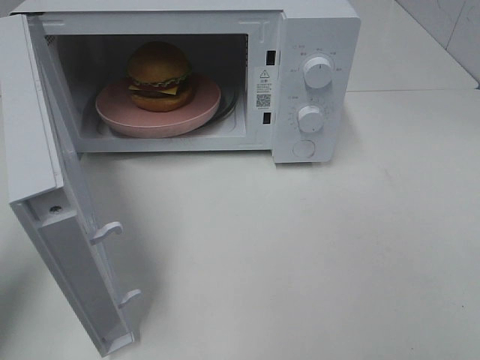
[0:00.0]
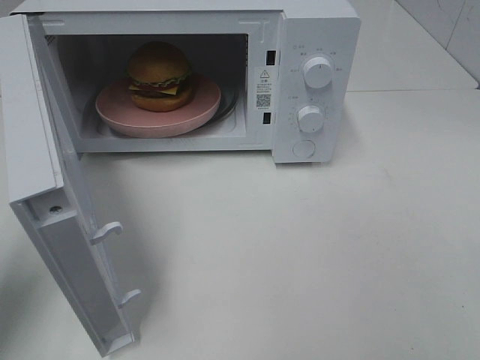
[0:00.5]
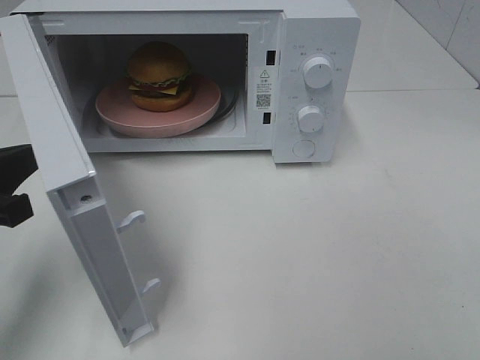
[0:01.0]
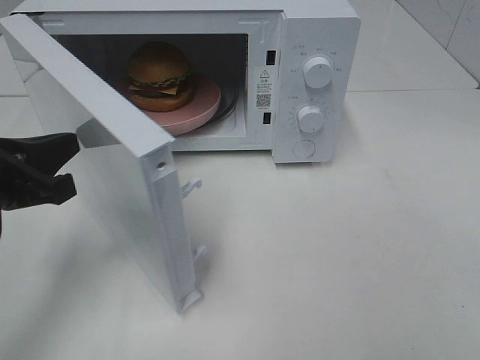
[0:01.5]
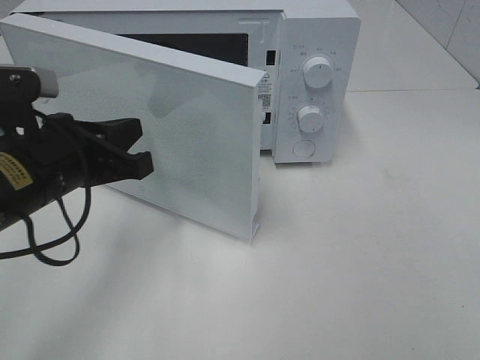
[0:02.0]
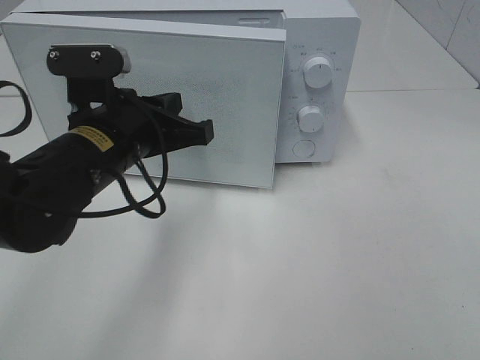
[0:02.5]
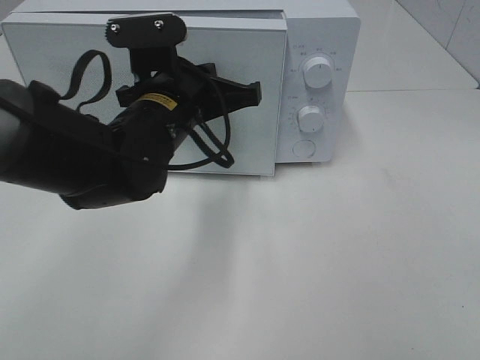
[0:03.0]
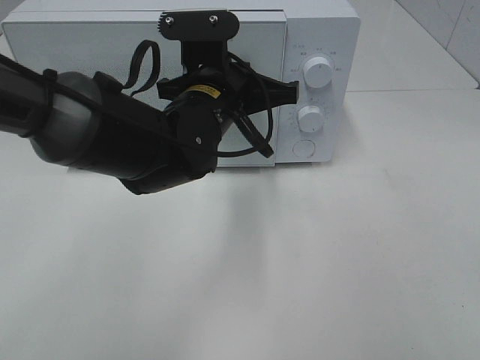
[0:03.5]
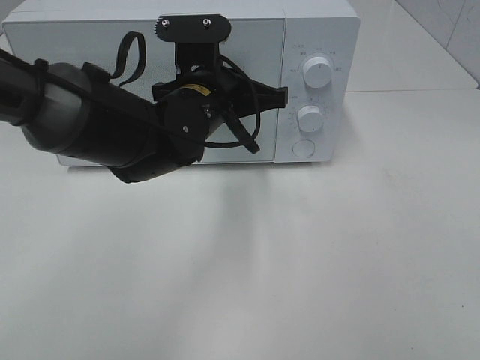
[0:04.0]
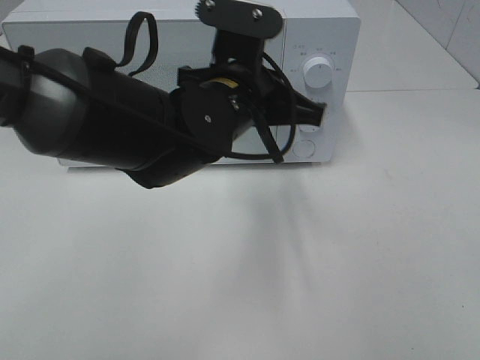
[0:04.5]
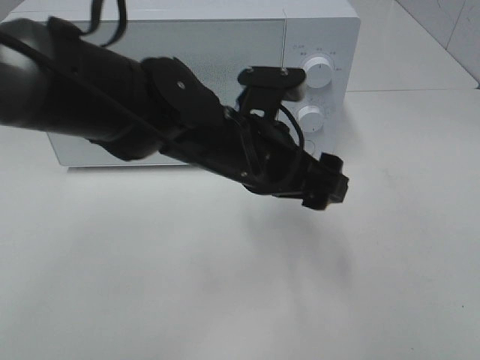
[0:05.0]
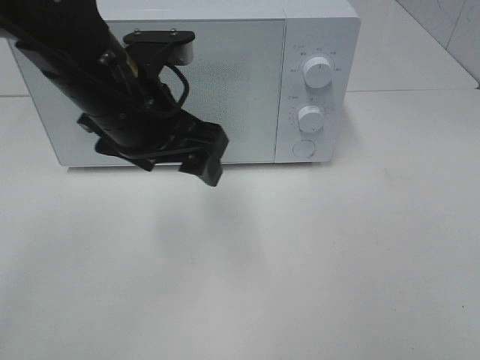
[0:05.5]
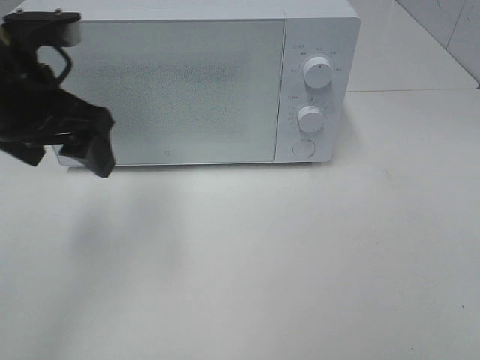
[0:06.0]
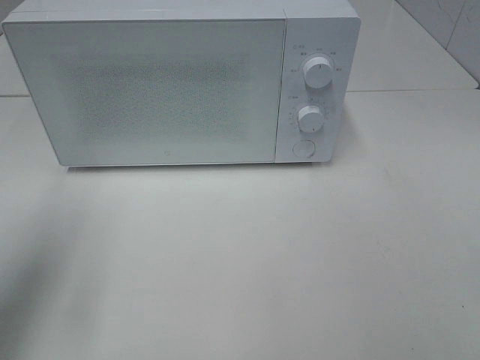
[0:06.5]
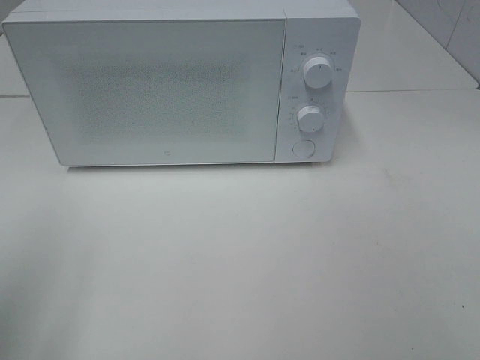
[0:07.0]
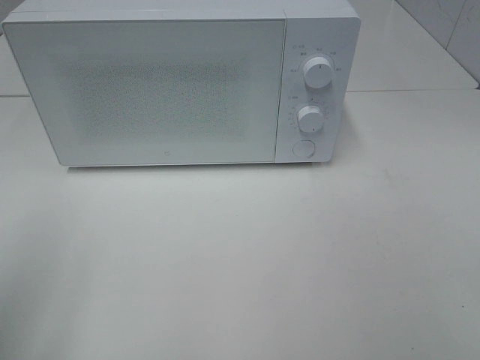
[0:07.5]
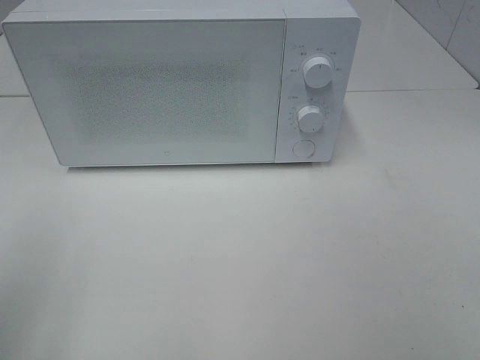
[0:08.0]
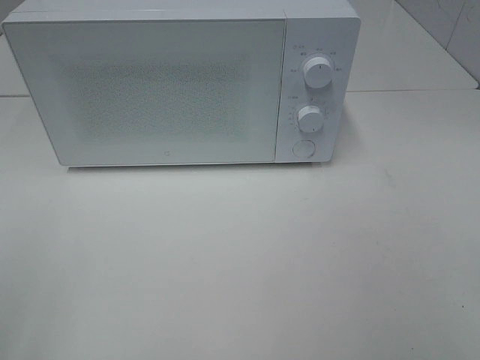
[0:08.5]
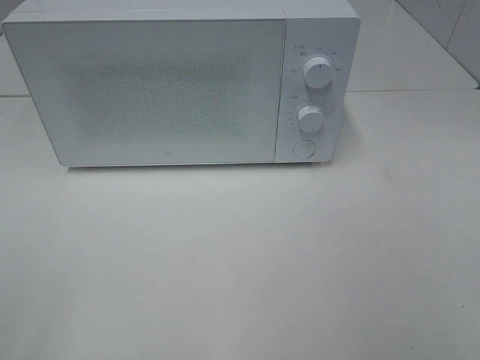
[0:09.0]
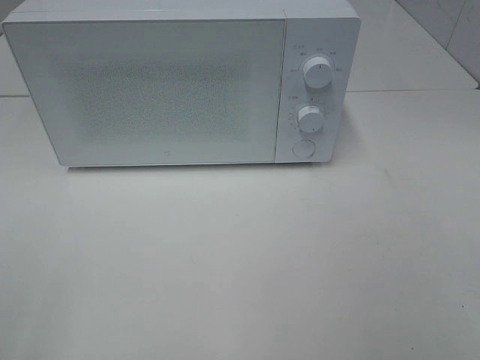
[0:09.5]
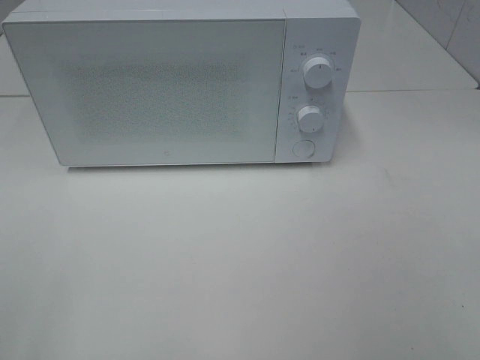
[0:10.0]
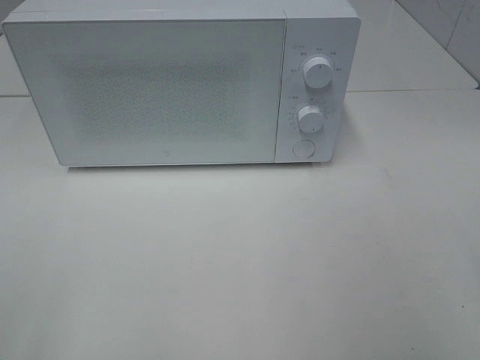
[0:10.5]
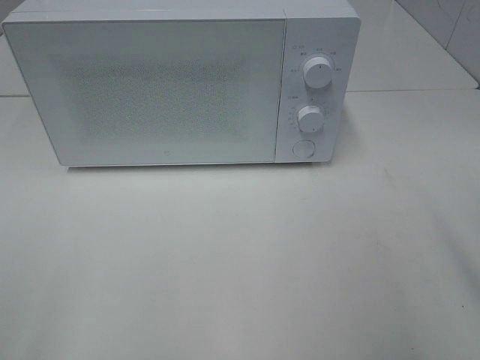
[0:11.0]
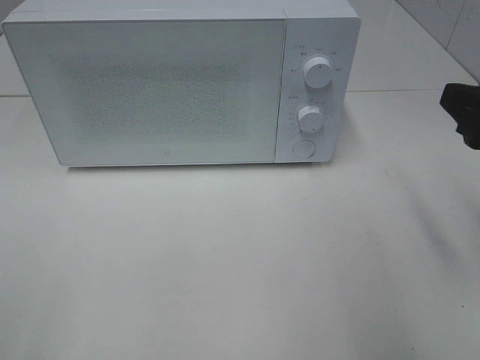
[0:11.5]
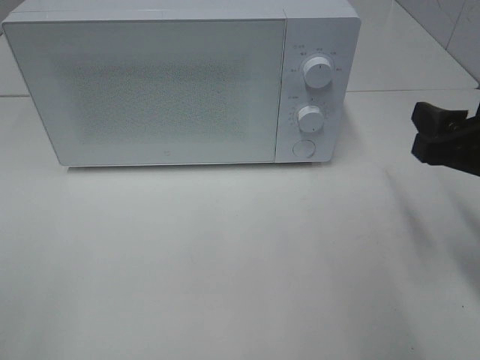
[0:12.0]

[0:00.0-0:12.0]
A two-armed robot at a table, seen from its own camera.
Task of the whole recording: Heat the burger.
Step, 0:00.0 to 0:04.0: Left hand: close the microwave door.
0:00.0 to 0:02.0: The left gripper goes some 15 cm to the right and forward.
0:02.0 to 0:04.0: The left gripper travels to the right and forward by roughly 15 cm.
0:04.0 to 0:06.0: The left gripper shifts about 20 cm to the left and upward, and opens.
0:06.0 to 0:08.0: The left gripper shifts about 20 cm backward and to the left.
0:10.0 to 0:12.0: The right gripper moves forward and downward, some 20 cm.

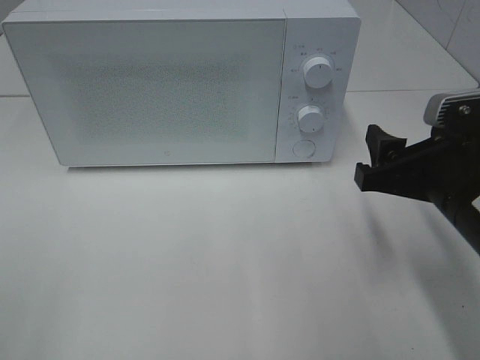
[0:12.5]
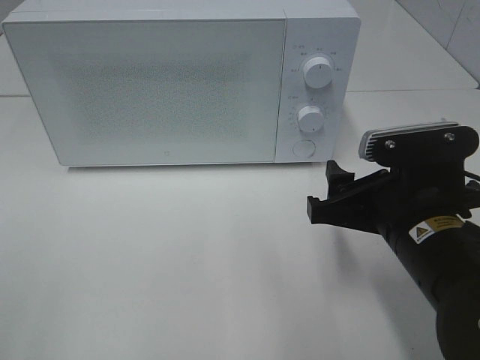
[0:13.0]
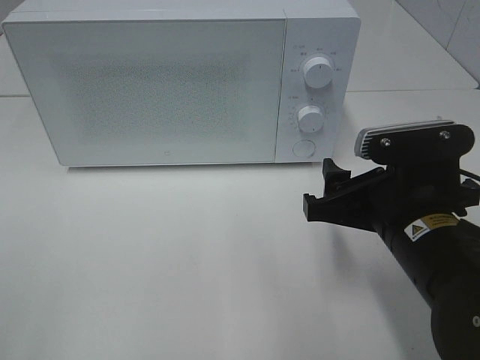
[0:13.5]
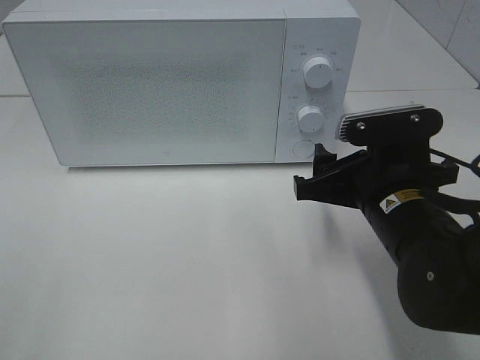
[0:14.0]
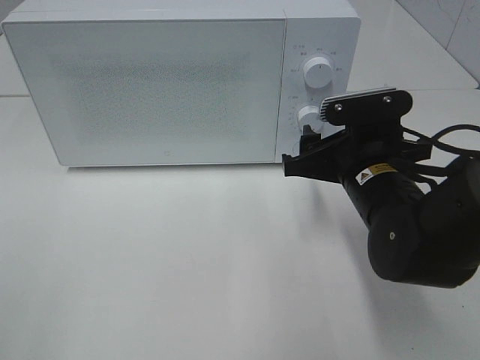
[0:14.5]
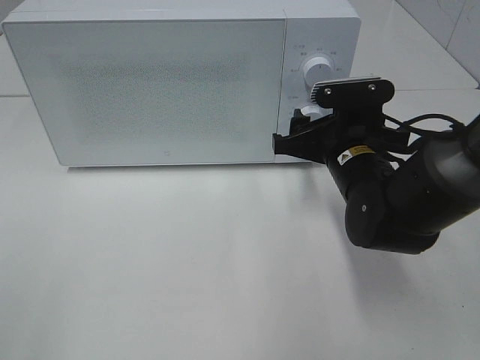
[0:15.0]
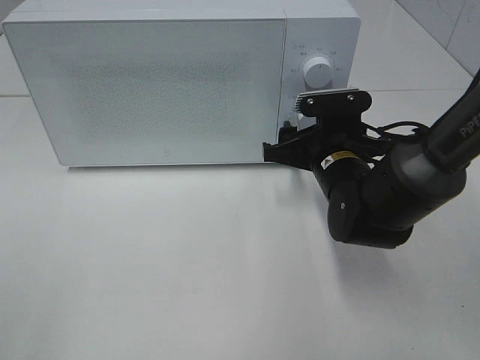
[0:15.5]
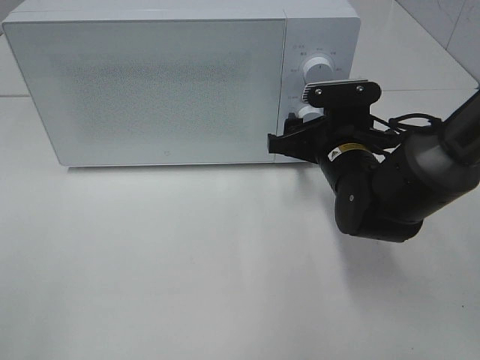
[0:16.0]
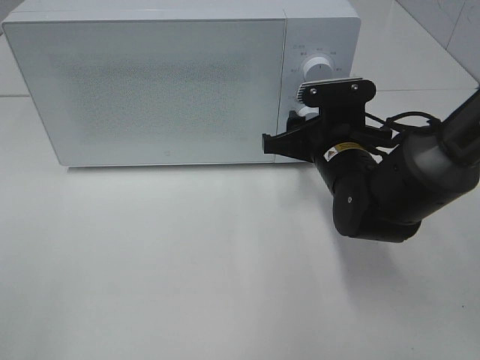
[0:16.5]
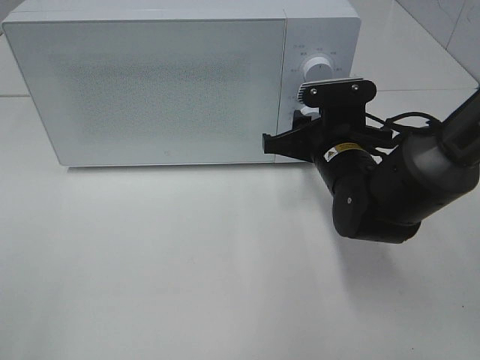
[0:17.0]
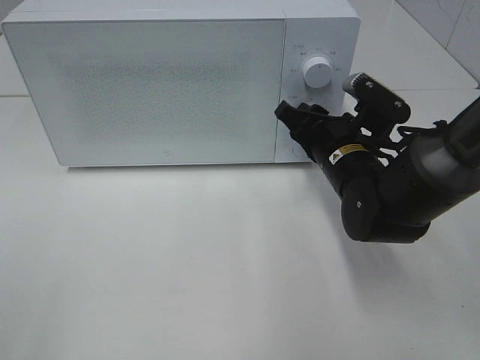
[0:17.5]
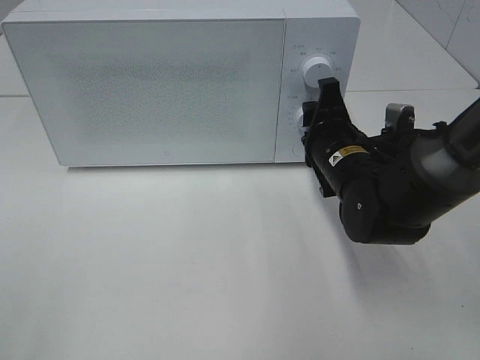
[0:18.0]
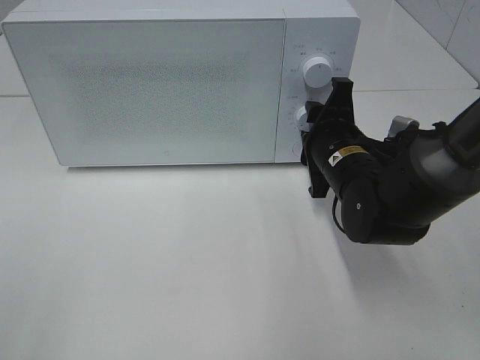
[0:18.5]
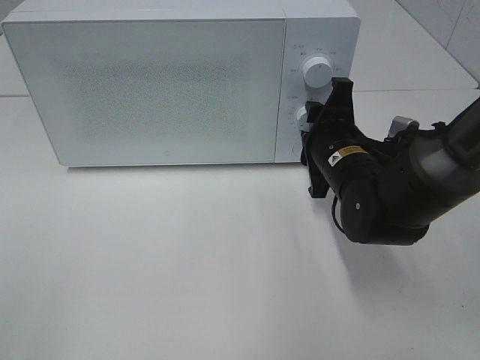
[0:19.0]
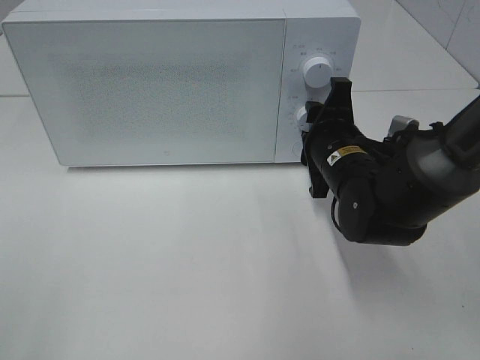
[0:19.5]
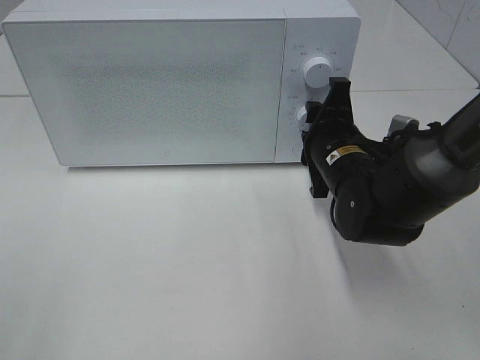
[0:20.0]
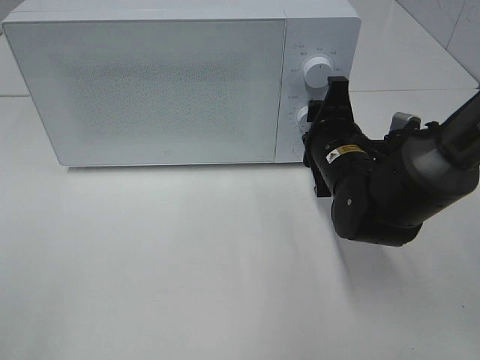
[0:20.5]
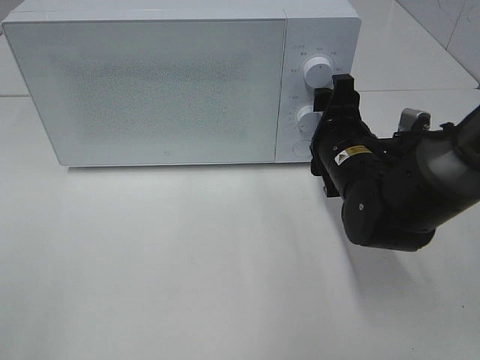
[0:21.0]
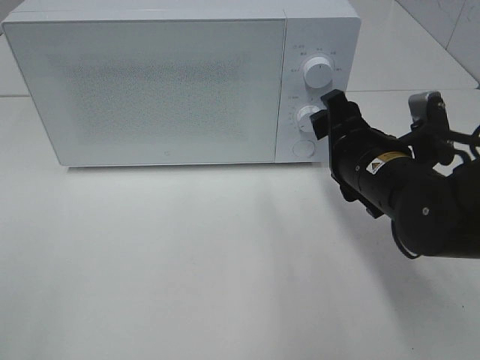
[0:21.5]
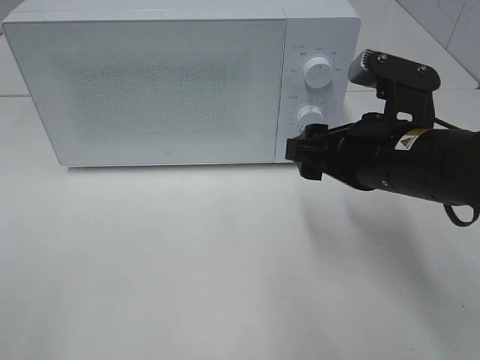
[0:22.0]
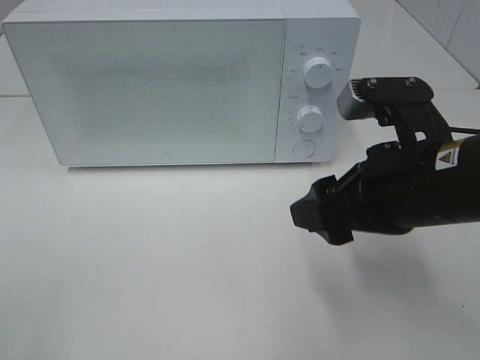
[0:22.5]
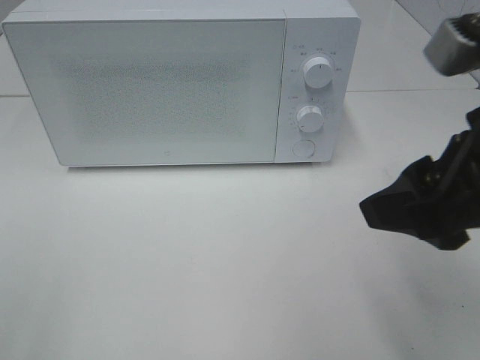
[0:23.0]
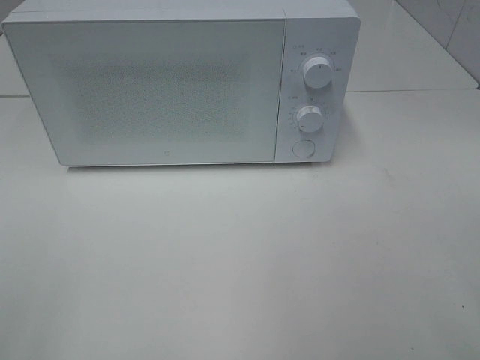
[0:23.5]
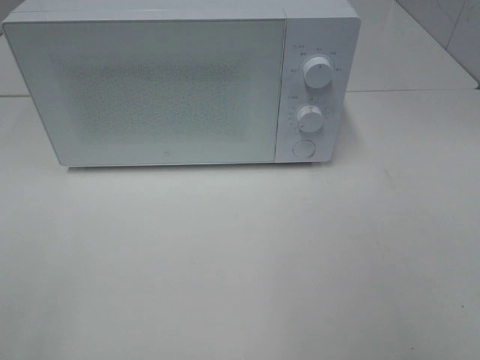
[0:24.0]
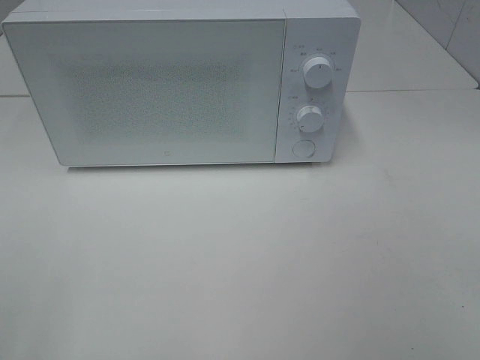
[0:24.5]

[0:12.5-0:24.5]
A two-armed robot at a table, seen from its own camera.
Task of the whole recording: Heat the burger.
Step, 0:12.5 to 0:20.5: Right hand: twist timer button.
0:12.5 to 0:14.5: The right gripper goes about 10 cm forward and to the left.
0:14.5 to 0:16.5: The right gripper travels forward by approximately 5 cm.
0:18.5 to 0:20.5: There are only small adjustments of the grippers.
0:20.5 to 0:22.5: The right gripper goes approximately 15 cm backward and upward.
0:22.5 to 0:24.5: The right gripper is displaced backward and to the right by approximately 25 cm.

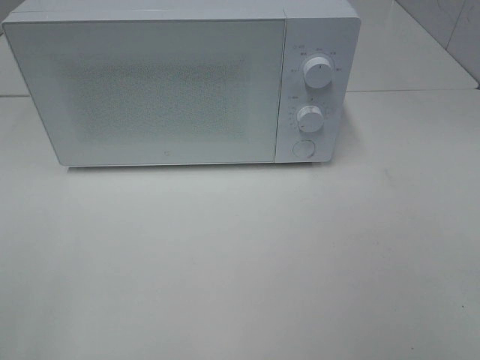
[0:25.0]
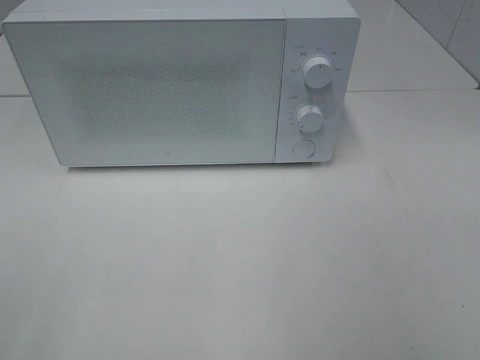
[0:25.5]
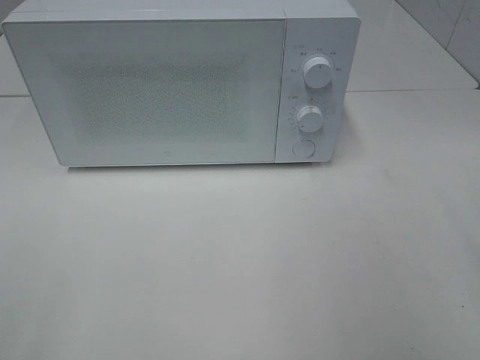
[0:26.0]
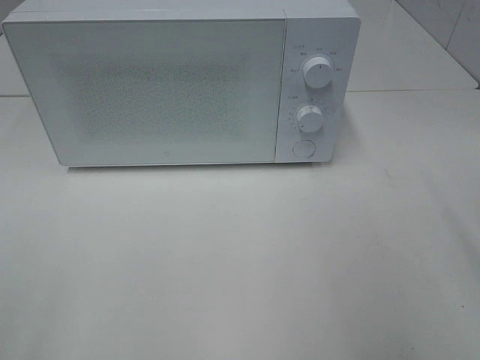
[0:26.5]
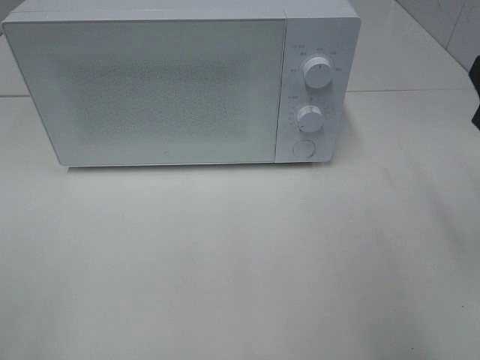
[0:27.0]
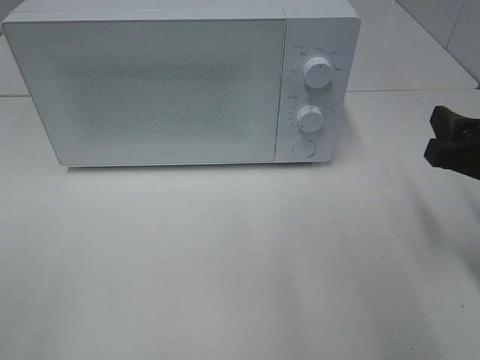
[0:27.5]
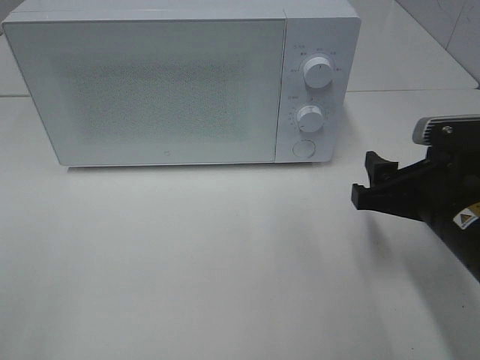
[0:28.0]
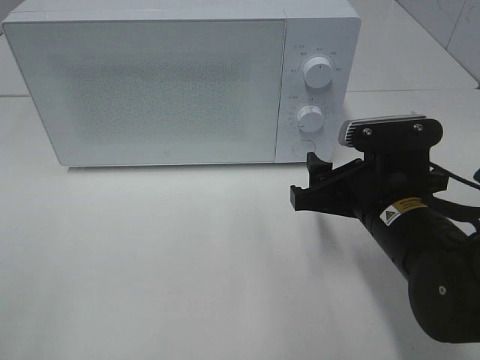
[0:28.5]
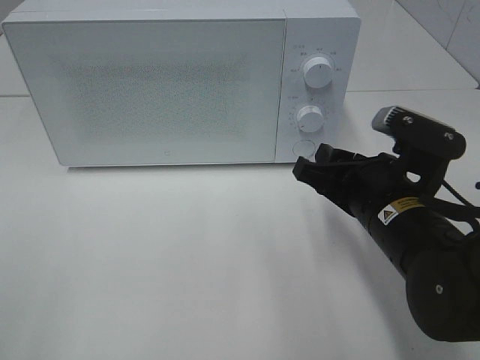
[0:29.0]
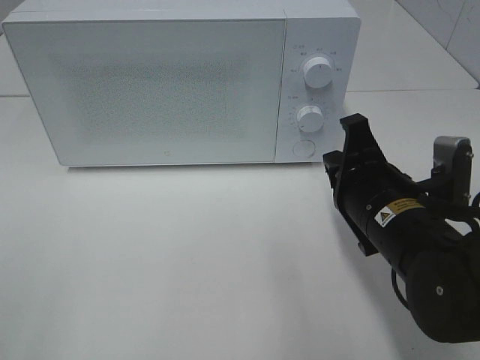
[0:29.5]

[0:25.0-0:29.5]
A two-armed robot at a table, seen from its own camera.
Task of the whole recording: Heat the burger.
0:27.0 to 0:29.5: The right gripper travels to the left and downward by some 15 cm, and closes up.
